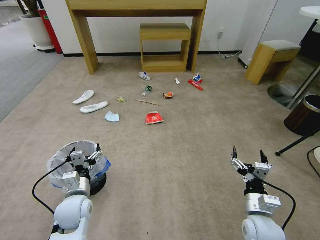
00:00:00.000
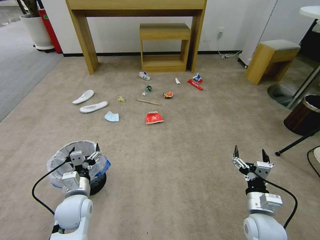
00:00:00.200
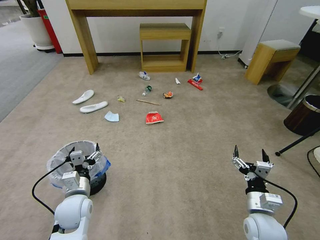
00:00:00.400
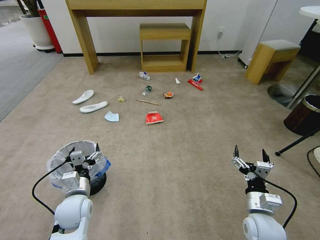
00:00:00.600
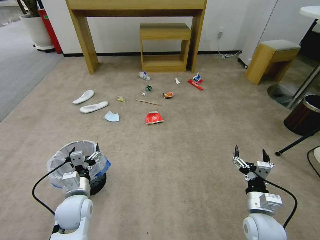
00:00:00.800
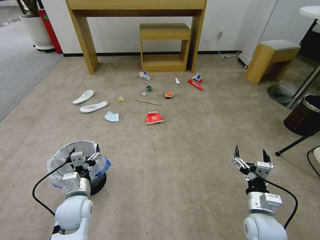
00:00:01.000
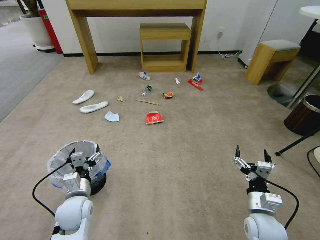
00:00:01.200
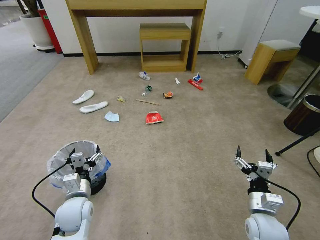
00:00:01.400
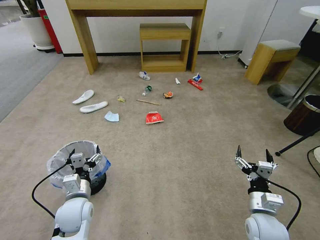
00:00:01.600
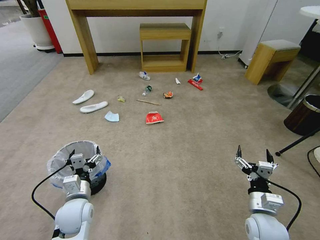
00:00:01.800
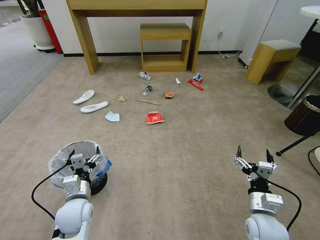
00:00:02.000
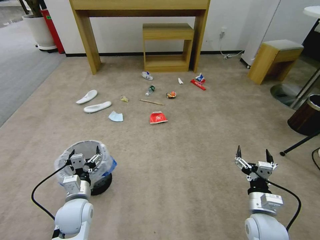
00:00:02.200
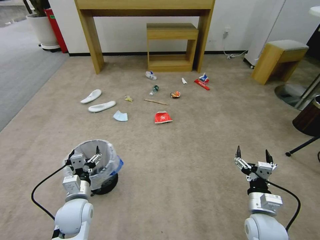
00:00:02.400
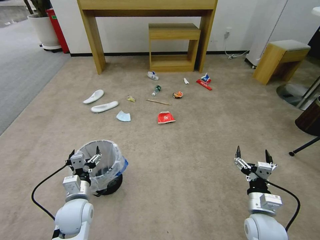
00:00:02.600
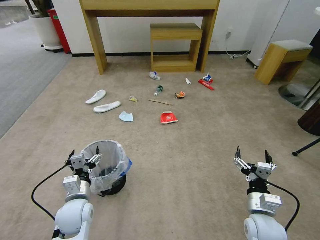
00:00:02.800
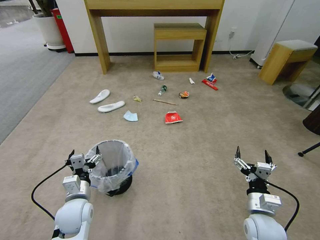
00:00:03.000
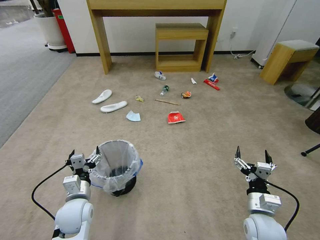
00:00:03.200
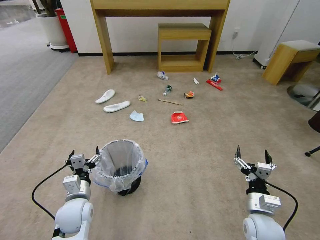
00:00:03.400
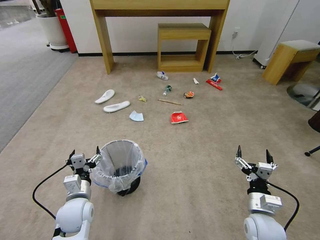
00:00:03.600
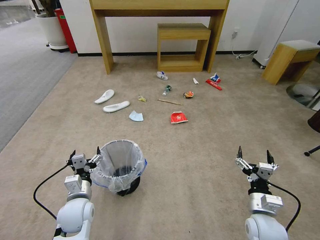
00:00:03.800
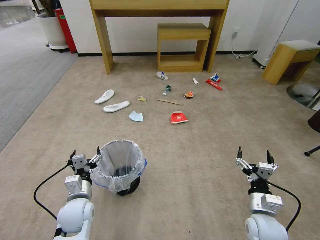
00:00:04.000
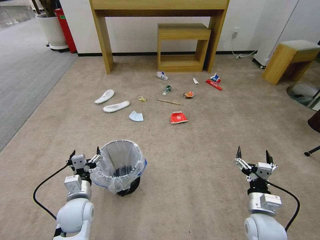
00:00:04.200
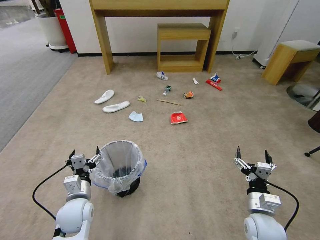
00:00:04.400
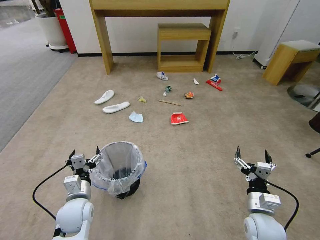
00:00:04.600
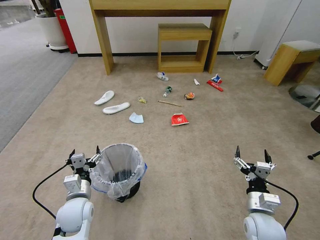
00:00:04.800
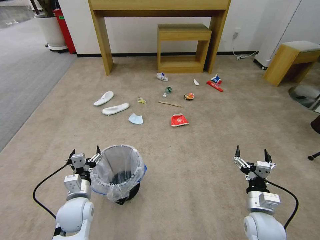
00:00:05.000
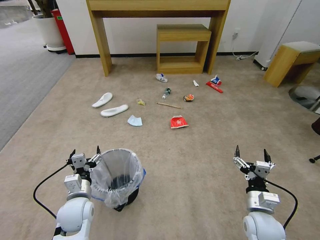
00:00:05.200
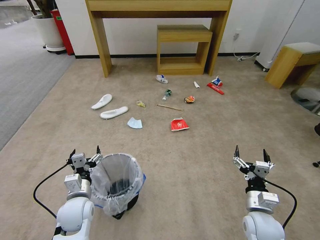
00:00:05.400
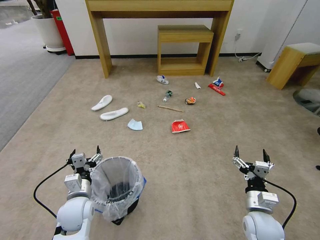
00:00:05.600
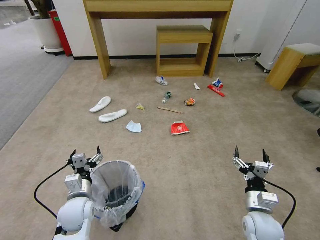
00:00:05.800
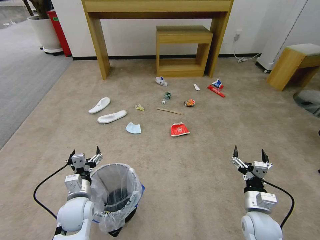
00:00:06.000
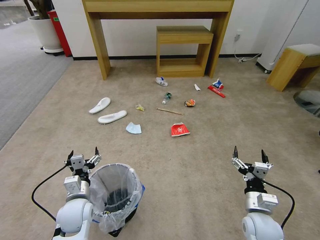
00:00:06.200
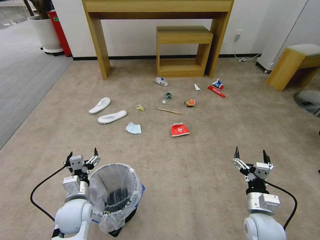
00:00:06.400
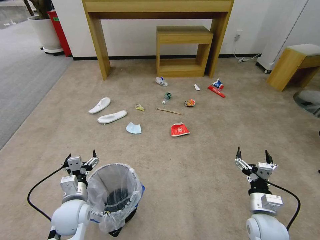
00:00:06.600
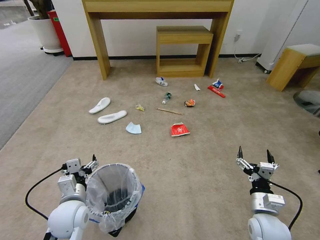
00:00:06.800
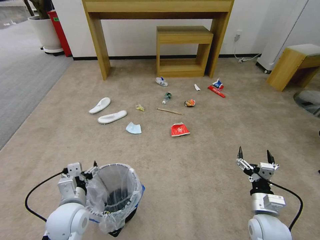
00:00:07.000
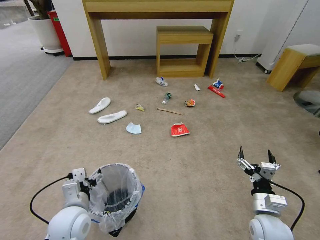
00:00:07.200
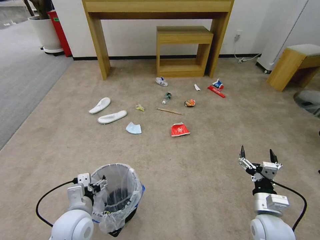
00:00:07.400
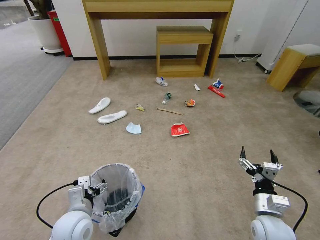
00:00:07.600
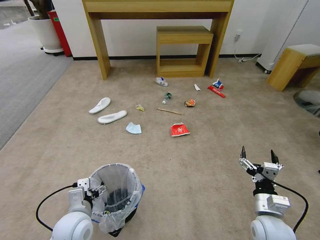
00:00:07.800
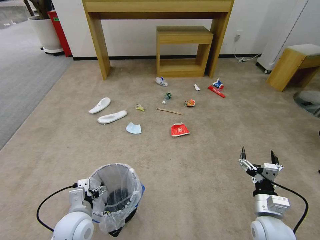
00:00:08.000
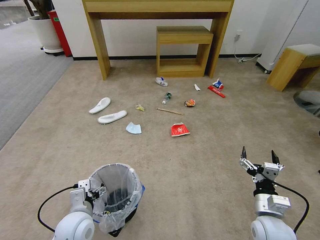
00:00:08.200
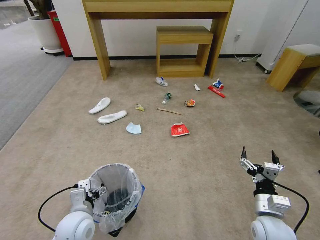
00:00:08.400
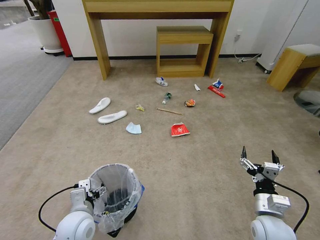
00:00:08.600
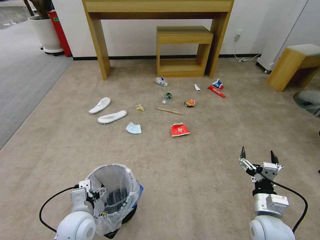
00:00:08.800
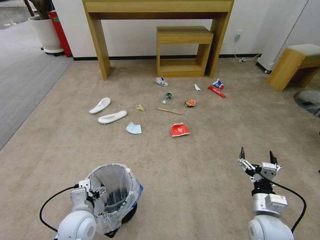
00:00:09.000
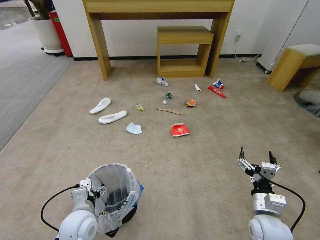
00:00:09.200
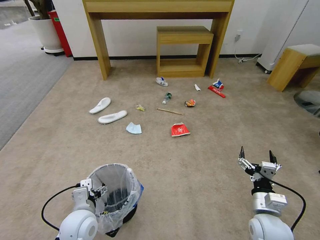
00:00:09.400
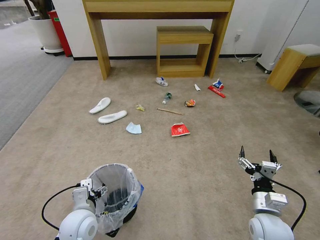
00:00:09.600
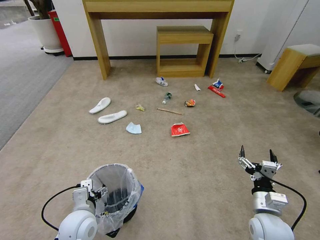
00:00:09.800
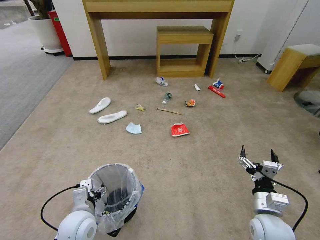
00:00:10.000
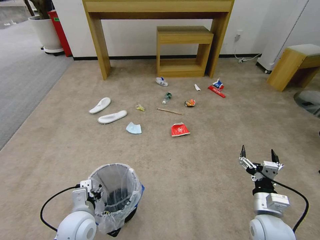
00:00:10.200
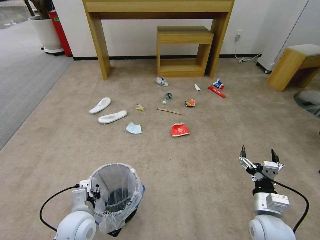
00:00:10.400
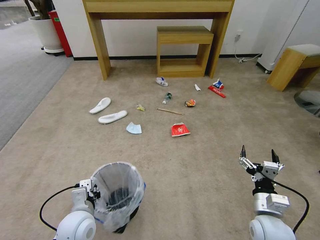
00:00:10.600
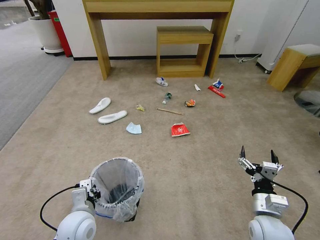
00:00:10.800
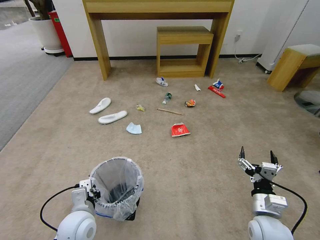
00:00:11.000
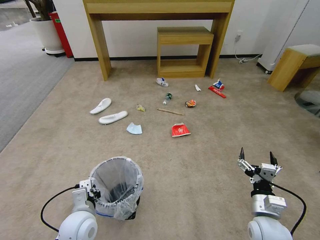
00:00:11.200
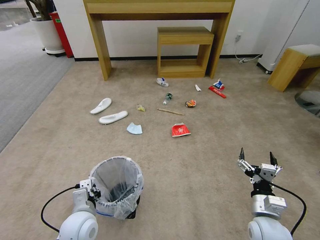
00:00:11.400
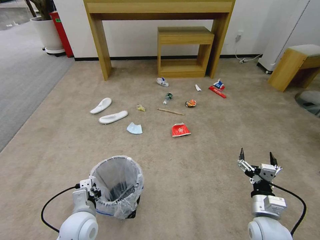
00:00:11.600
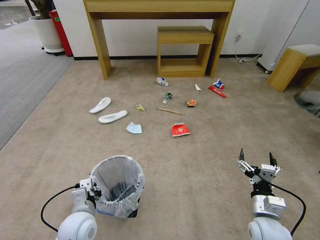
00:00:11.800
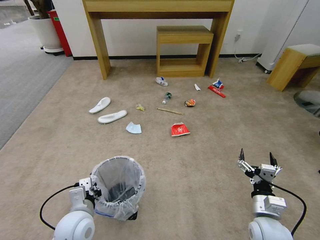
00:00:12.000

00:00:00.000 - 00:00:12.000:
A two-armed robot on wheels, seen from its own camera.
Task of the whole recording: Pick up the trash bin and place the garbage on the floor into it.
00:00:03.000 - 00:00:04.400: Neither gripper changes place.
00:00:04.400 - 00:00:06.000: Both grippers stay about where they are.
00:00:06.000 - 00:00:07.600: The left gripper shifts approximately 5 cm backward.
00:00:07.600 - 00:00:09.000: The grippers stay close to where they were, moving slightly.
00:00:09.000 - 00:00:10.400: The left gripper closes up.
00:00:10.400 - 00:00:12.000: The left gripper closes up.

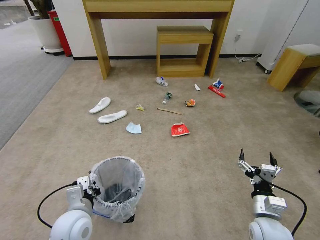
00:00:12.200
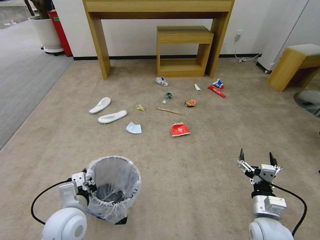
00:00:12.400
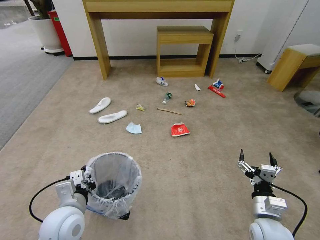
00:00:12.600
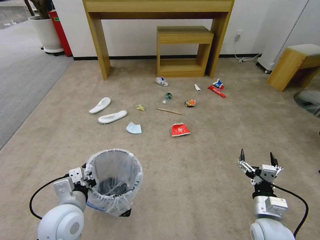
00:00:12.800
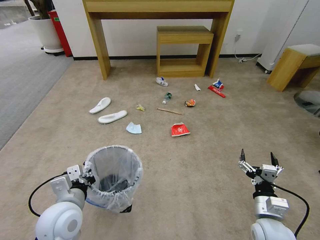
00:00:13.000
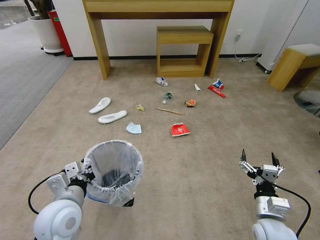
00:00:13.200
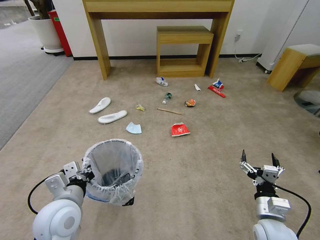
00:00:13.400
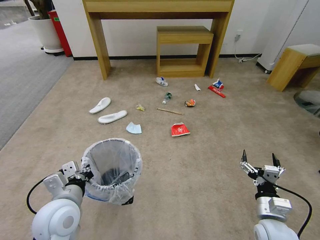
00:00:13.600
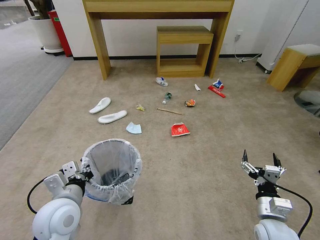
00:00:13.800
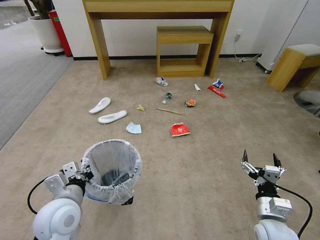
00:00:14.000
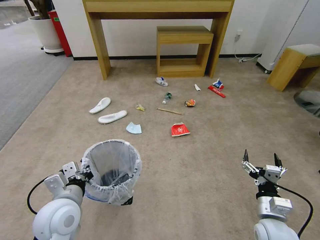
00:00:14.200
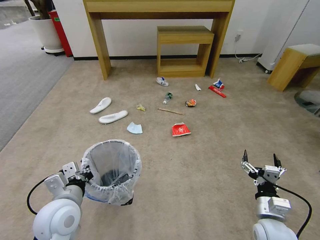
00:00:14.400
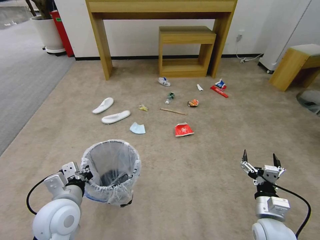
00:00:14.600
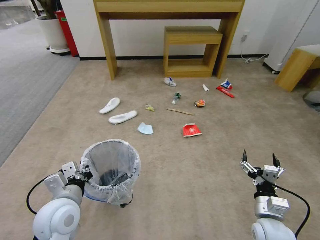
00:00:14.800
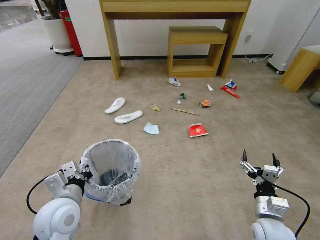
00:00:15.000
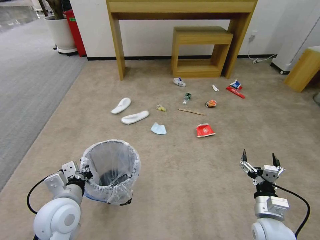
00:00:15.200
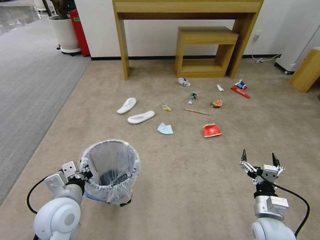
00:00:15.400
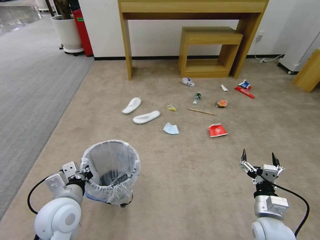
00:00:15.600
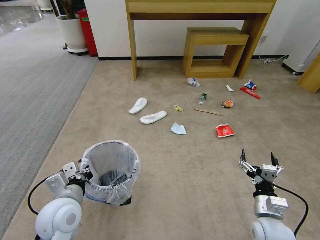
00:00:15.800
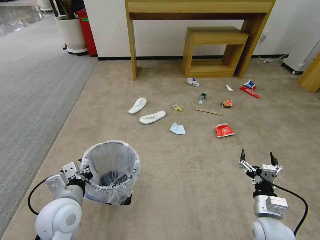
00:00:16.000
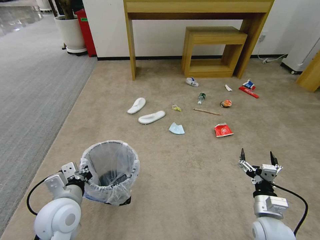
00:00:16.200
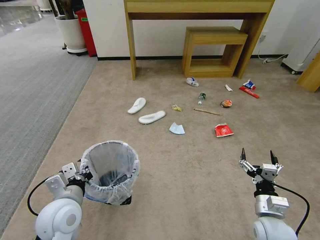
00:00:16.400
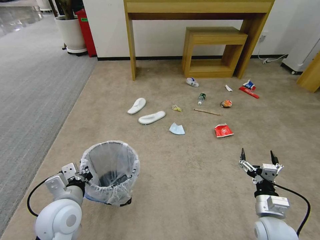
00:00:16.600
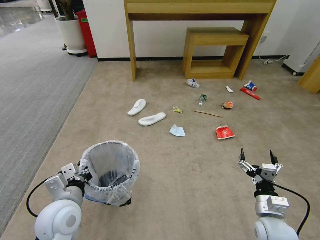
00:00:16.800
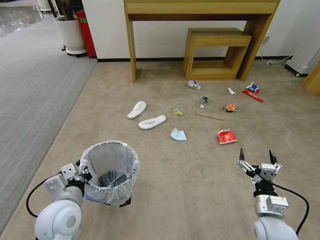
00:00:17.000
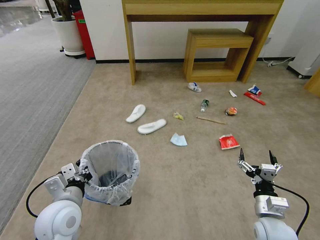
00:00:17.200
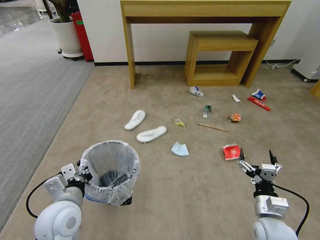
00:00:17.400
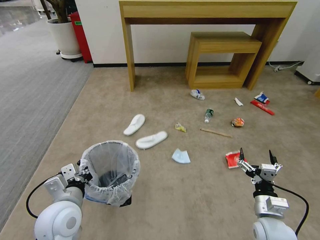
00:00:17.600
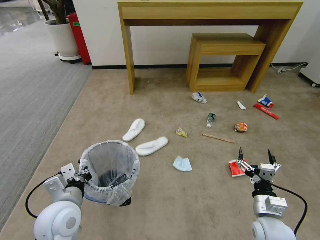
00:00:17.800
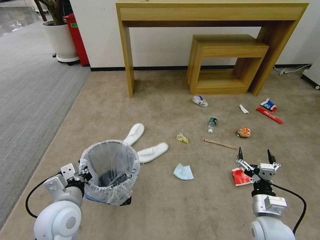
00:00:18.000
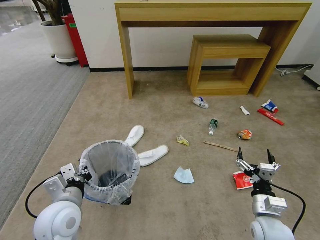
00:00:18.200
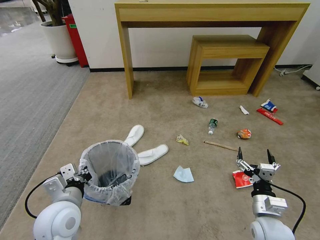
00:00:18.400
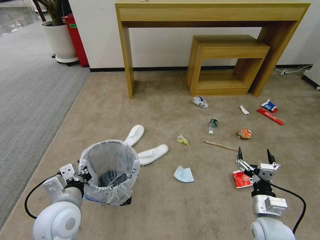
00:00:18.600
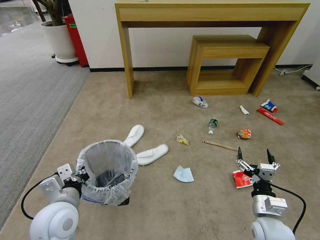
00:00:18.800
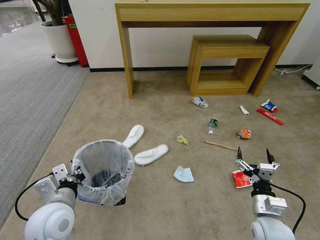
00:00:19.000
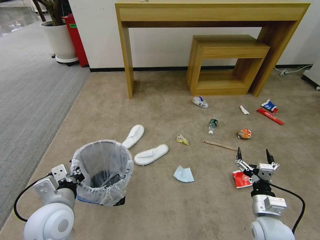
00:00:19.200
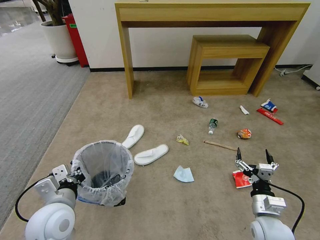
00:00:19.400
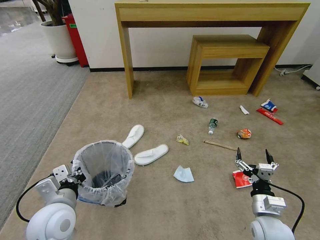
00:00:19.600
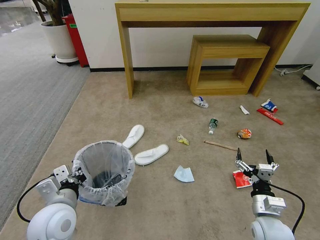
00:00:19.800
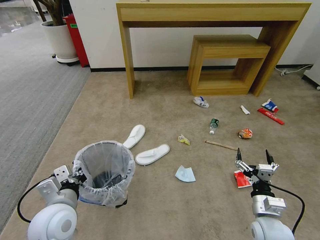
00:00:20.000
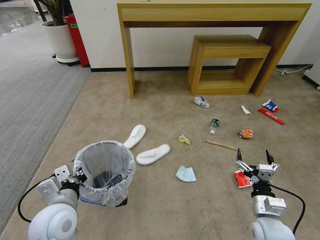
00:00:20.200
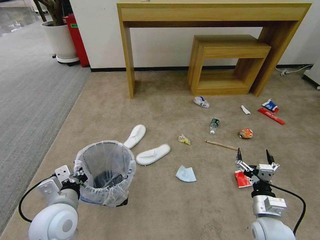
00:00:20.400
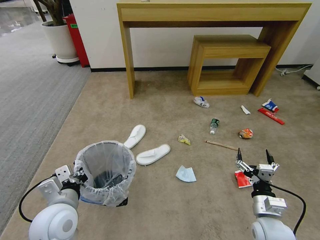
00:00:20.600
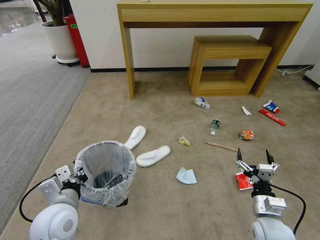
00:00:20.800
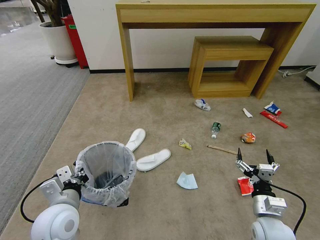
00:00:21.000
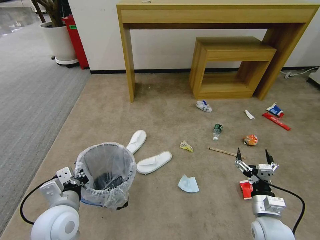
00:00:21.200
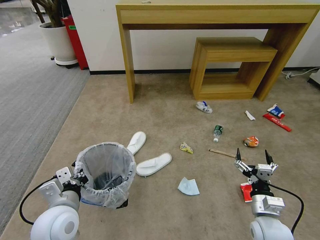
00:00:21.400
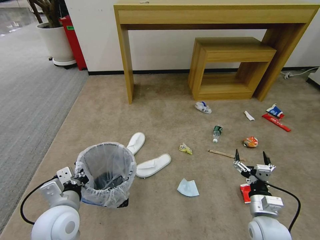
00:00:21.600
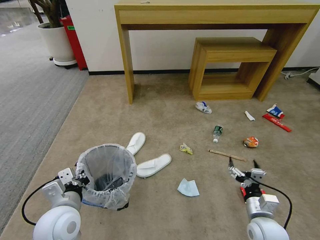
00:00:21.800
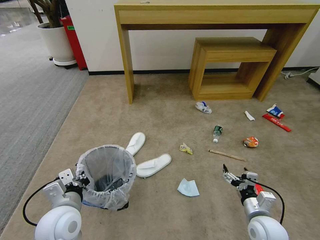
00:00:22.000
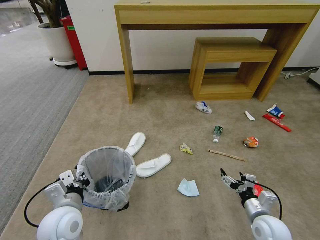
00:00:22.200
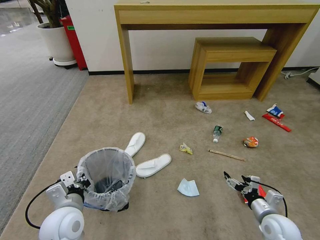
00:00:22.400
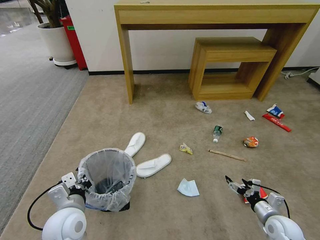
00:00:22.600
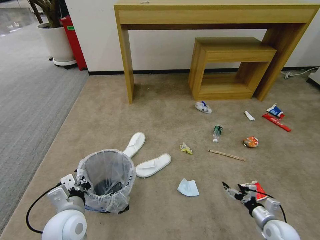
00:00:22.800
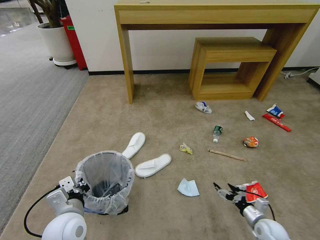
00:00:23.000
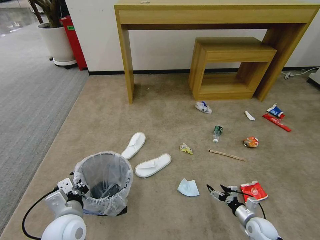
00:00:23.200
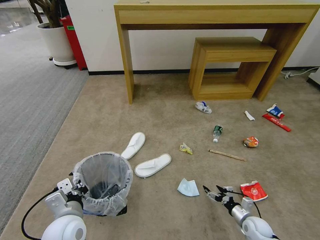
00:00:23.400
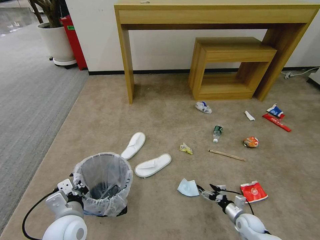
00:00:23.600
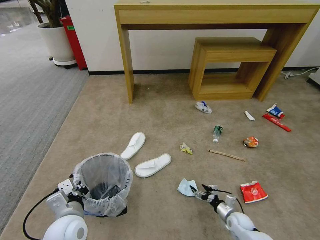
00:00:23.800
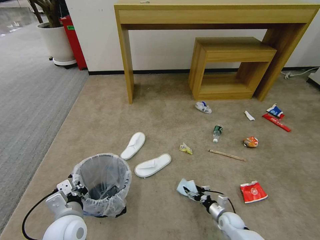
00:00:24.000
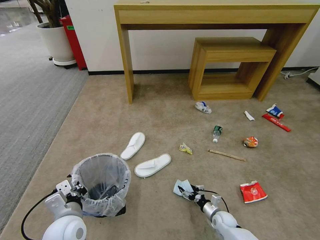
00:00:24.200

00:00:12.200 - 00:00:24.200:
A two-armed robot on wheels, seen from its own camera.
Task of the whole recording: Pick up the trash bin and place the garbage on the floor into it.
00:00:12.200 - 00:00:13.800: The left gripper is displaced upward by approximately 5 cm.
00:00:13.800 - 00:00:16.600: Both grippers stay about where they are.
00:00:18.200 - 00:00:19.800: The grippers move only a little.
00:00:19.800 - 00:00:21.200: The two grippers keep their place.
00:00:21.200 - 00:00:22.600: The right gripper heads to the right and downward, covering about 10 cm.
00:00:22.600 - 00:00:24.200: The right gripper goes some 20 cm downward and to the left.
